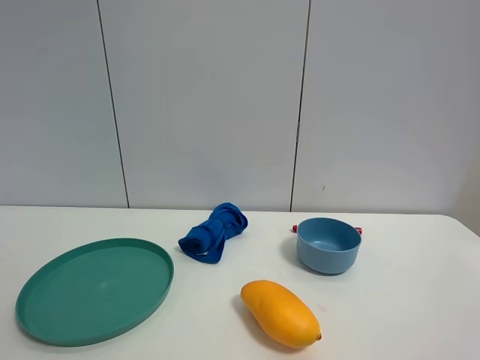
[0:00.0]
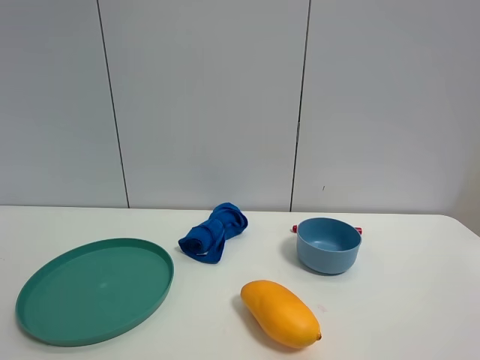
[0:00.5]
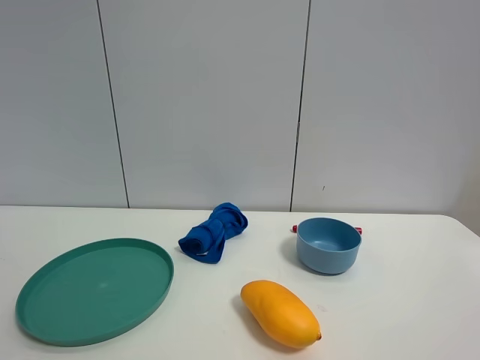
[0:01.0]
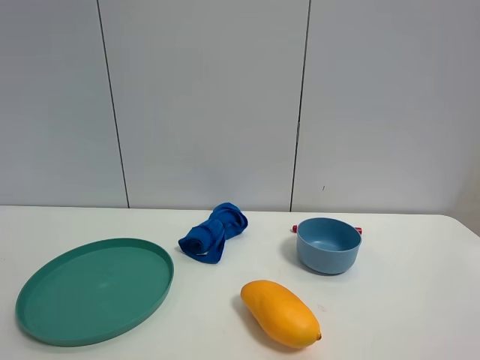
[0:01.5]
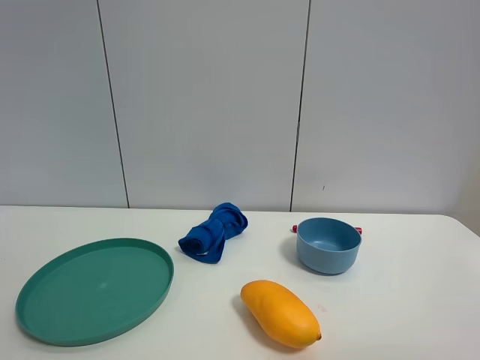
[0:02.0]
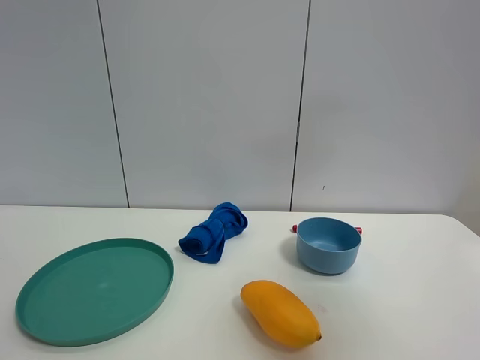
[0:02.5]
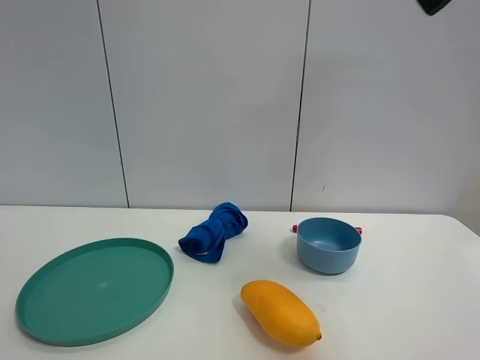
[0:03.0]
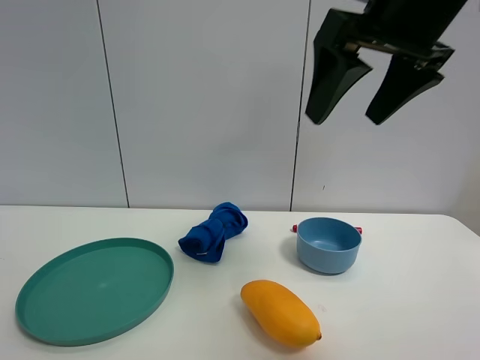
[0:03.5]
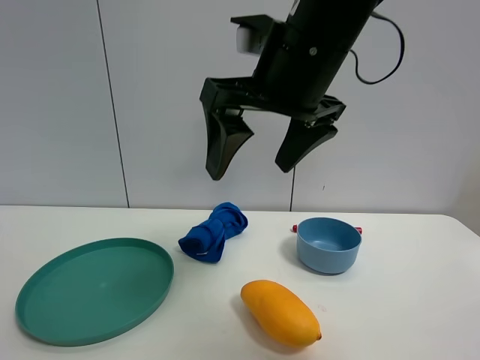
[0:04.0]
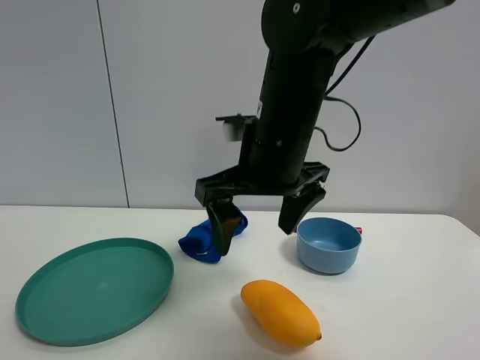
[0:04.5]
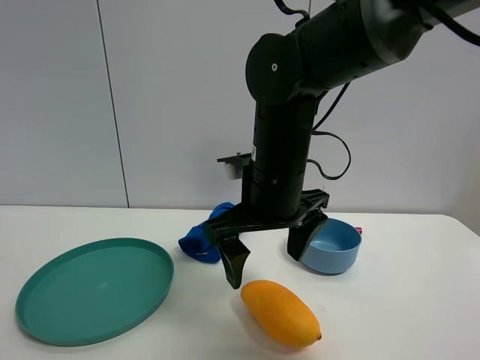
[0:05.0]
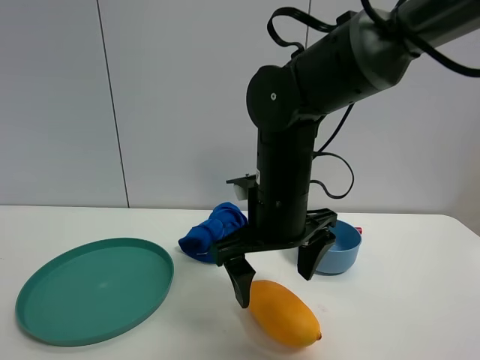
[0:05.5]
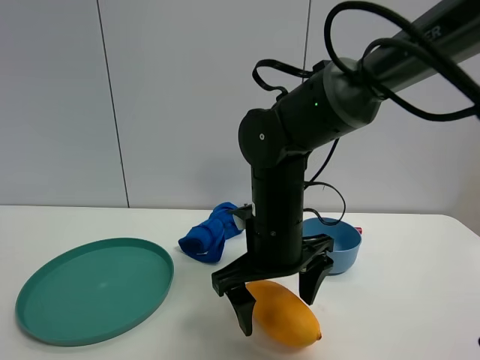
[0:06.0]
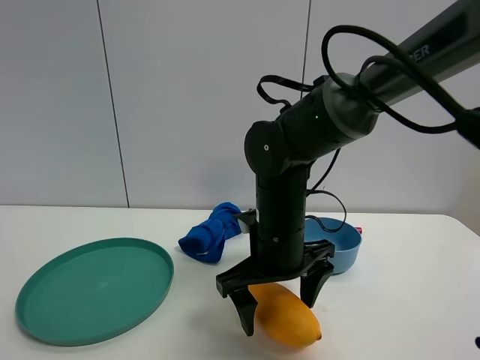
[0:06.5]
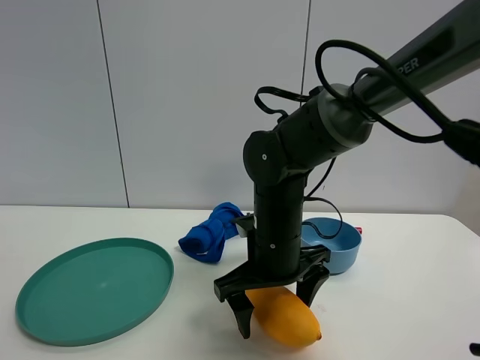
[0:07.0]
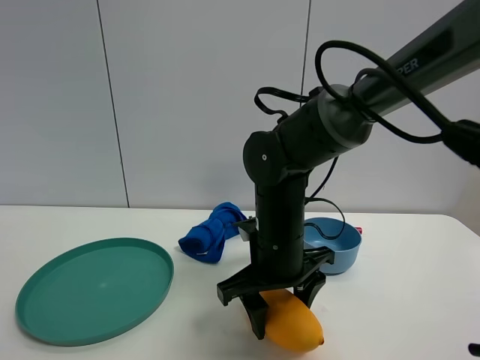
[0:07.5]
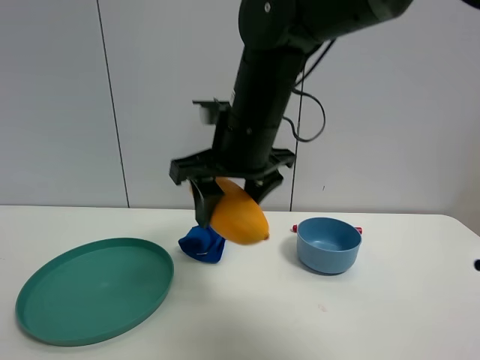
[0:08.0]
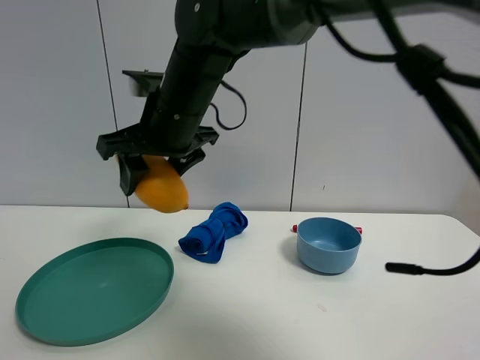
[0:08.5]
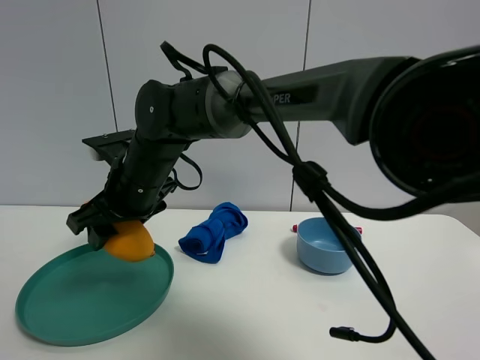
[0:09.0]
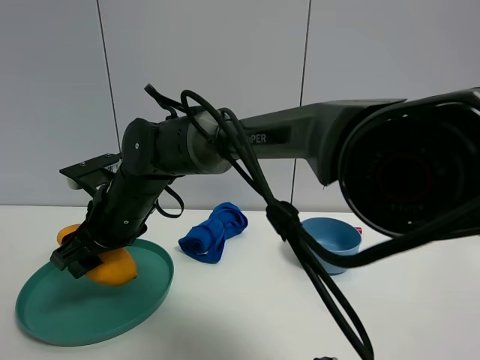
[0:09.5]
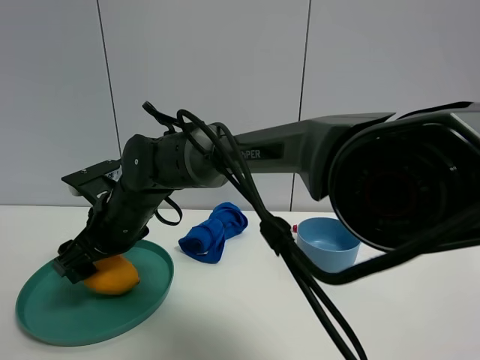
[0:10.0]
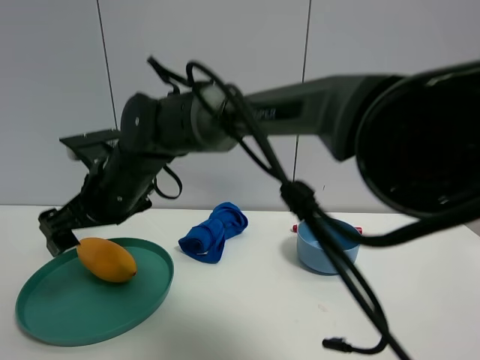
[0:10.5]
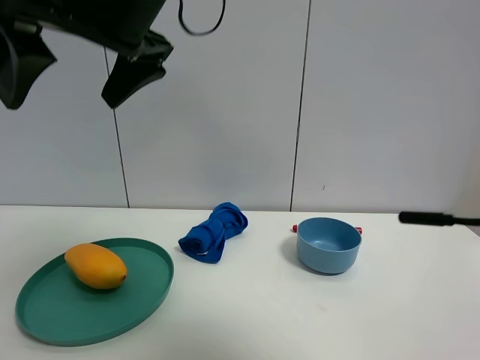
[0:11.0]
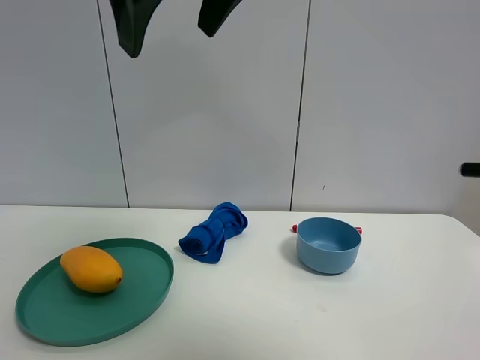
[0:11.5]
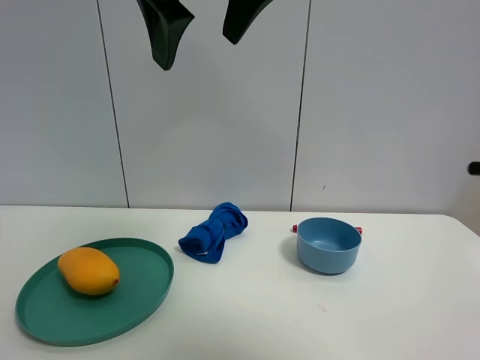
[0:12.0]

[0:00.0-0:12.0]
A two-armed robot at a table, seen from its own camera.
Task of the whole recording: the gripper move the object.
Step, 0:00.0 to 0:07.0: Grasp the mango with the right gripper.
Step, 0:07.5 to 0:10.5: Place the mango into the green plate with the right gripper.
0:02.0 to 0:04.0: The right gripper goes about 35 cm forward and to the left.
0:04.0 to 0:06.0: The right gripper moves downward, about 20 cm.
0:06.0 to 0:08.0: The right gripper is displaced upward by some 10 cm, and closes its fingers.
0:08.0 to 0:10.0: The right gripper travels to the left and downward by roughly 20 cm, and opens its fingers.
0:10.0 to 0:12.0: The right gripper is displaced upward and to the right by about 30 cm, and opens up.

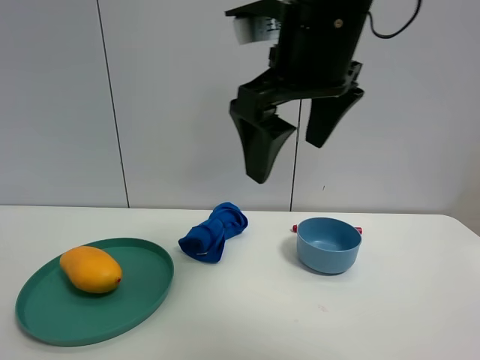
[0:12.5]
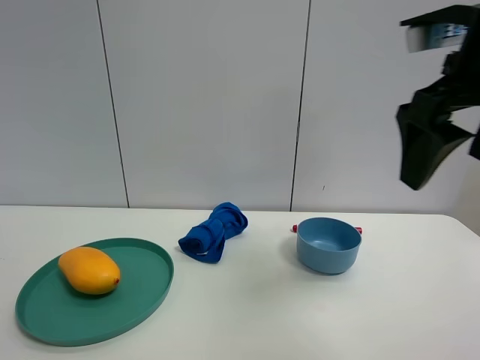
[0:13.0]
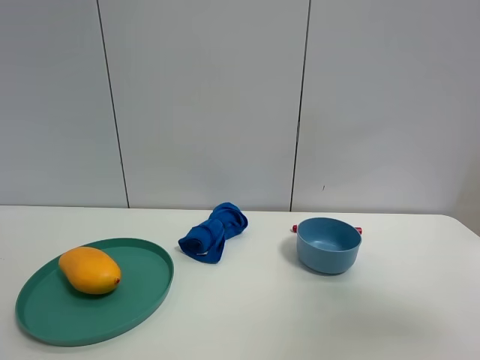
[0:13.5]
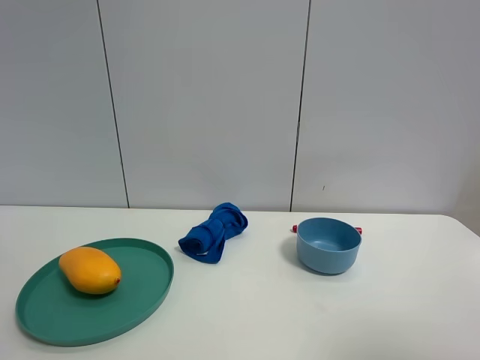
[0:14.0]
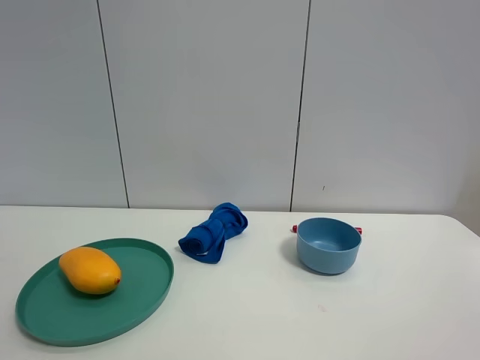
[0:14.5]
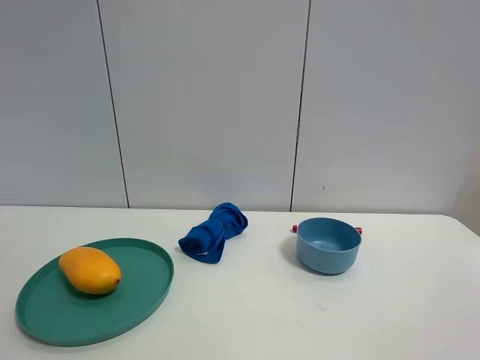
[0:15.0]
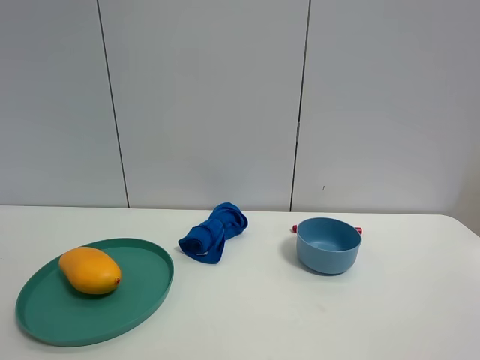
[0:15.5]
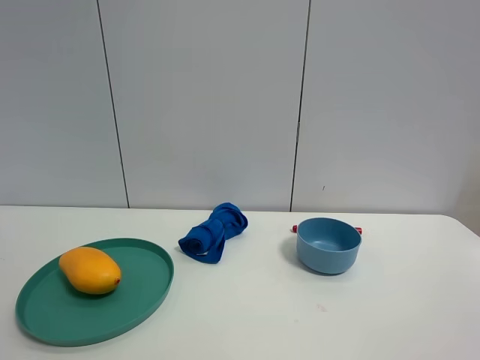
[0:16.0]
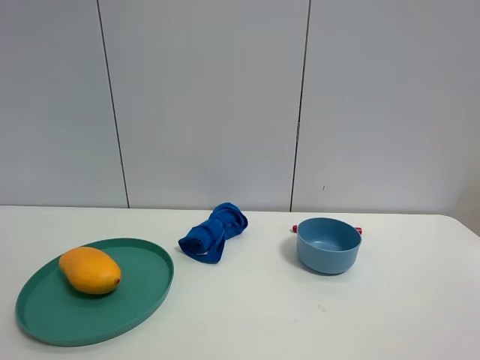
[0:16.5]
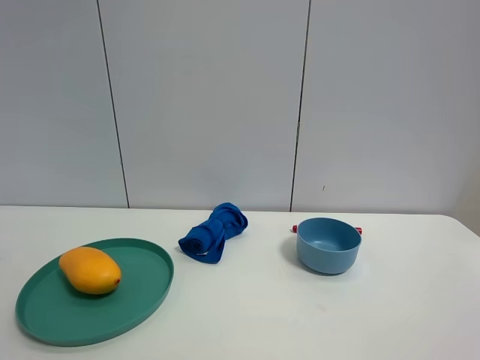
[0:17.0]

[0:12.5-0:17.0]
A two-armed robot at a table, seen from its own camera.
Task of the whole recording: the gripper move the object.
0:12.5 to 0:14.5: The right gripper moves backward and to the right, about 35 cm.

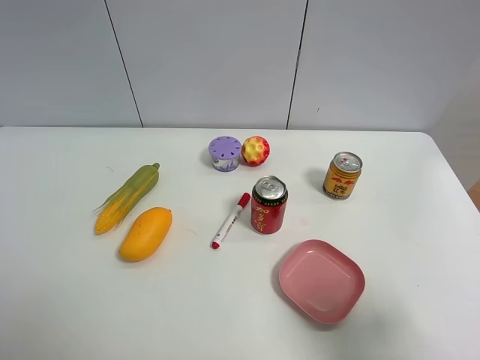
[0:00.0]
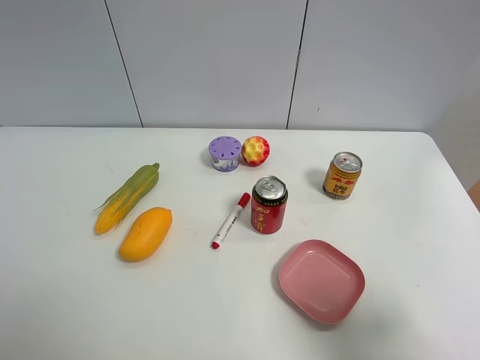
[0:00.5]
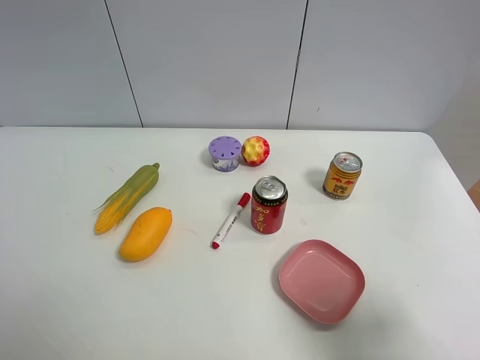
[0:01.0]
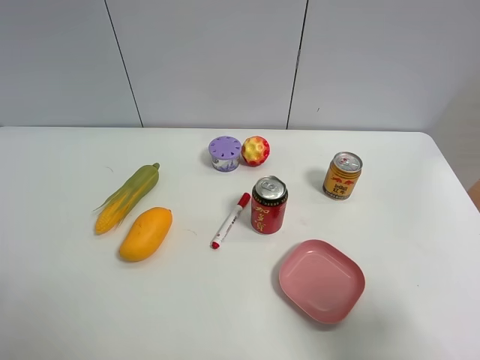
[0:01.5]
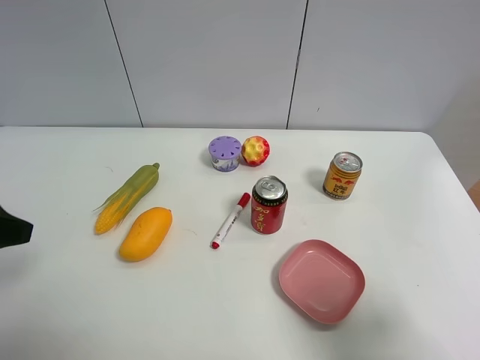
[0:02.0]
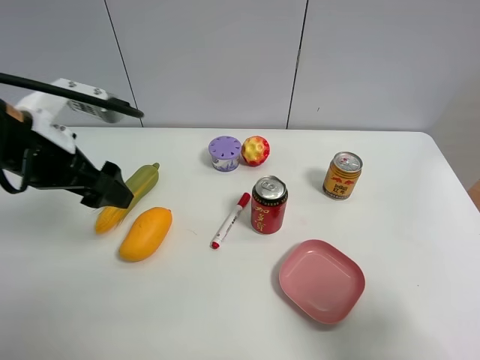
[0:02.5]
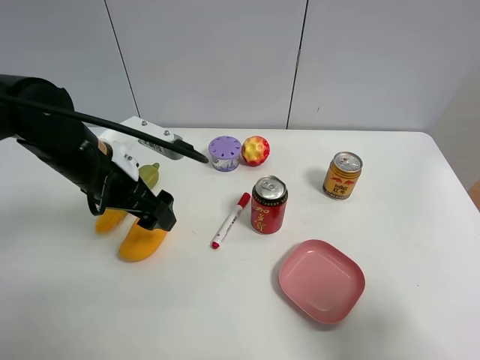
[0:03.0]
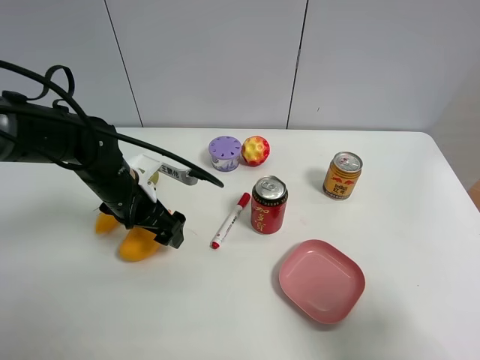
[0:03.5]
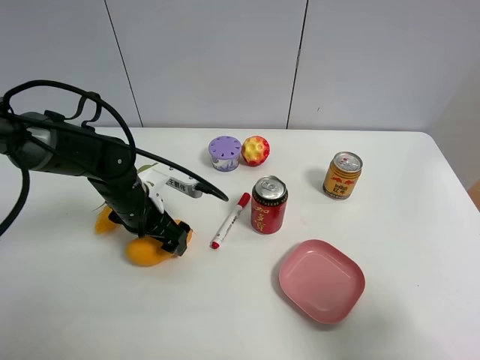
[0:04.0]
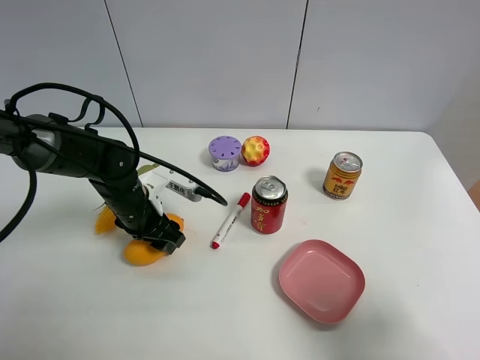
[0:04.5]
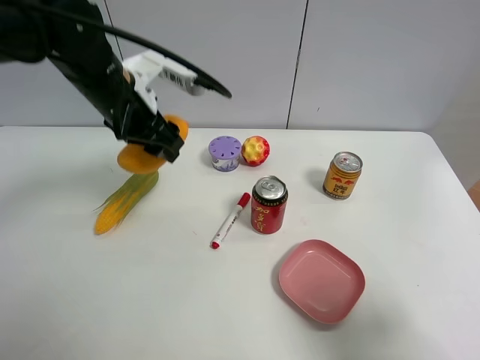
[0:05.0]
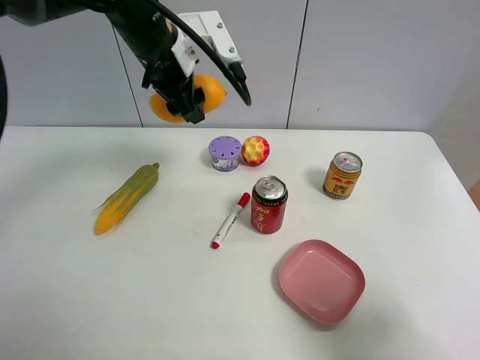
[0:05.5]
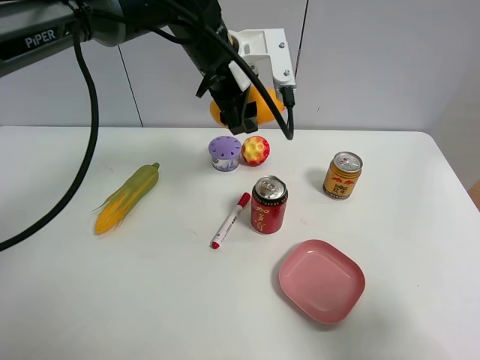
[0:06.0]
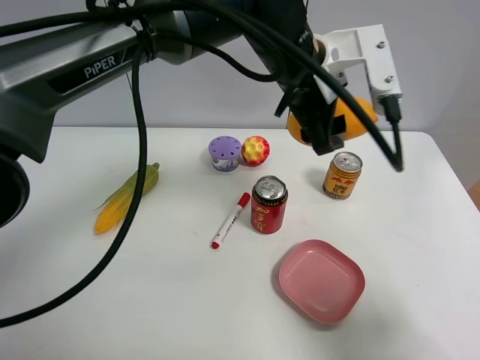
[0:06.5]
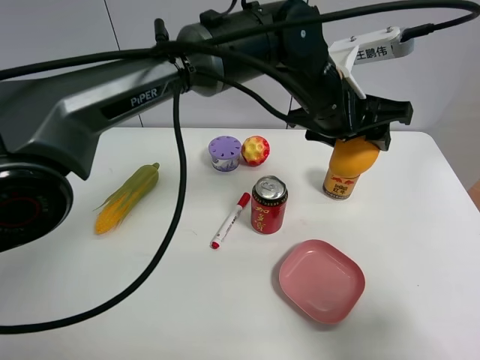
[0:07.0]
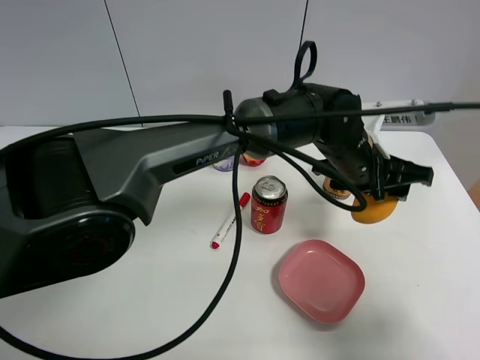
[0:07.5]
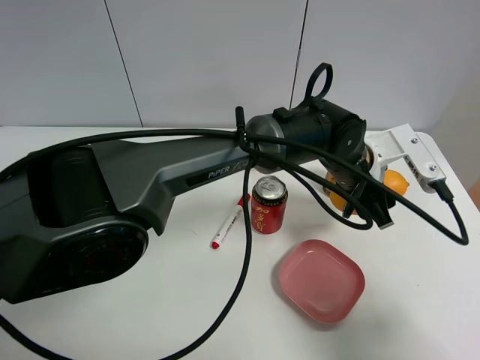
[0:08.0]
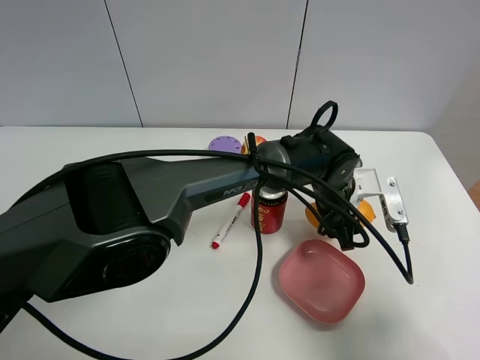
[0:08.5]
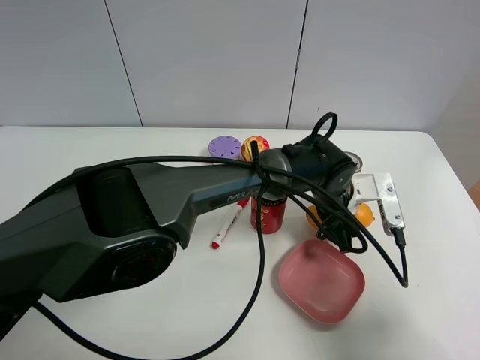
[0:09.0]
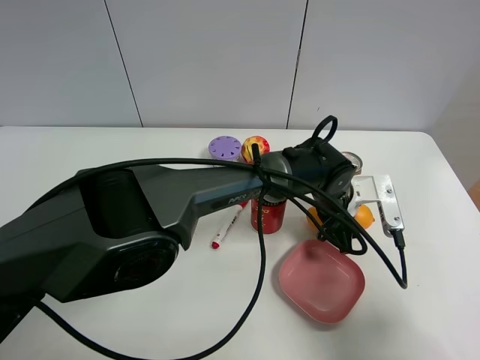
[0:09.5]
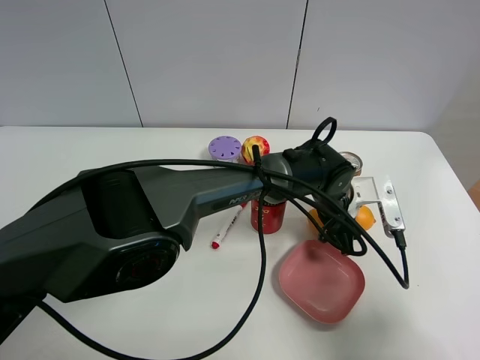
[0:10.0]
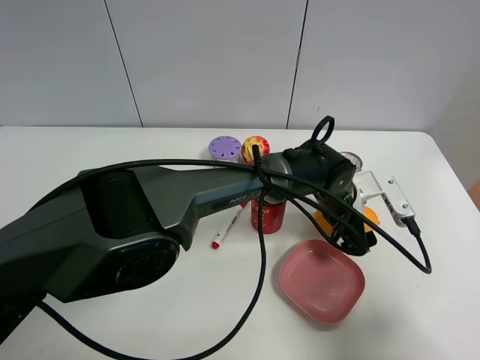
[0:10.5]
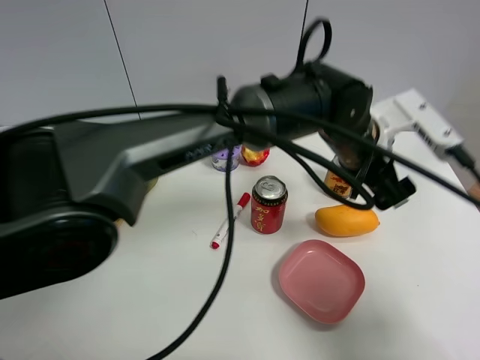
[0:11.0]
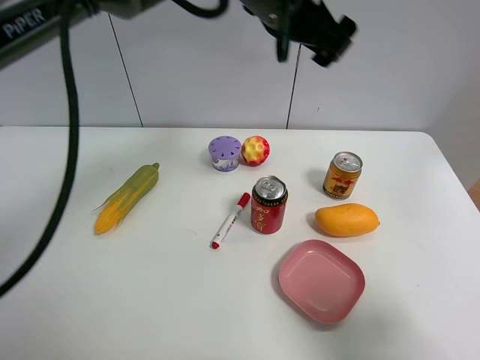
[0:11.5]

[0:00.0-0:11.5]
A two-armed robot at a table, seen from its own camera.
Task of the whole recording: the gripper move the object.
Step, 0:00.0 to 0:04.0: Grasp the mango with the left gripper.
Step, 0:04.5 to 0:10.5: Place the mango on the table with the left gripper.
0:00.0 to 0:02.0: The left gripper goes some 15 cm forward.
0:02.0 to 0:04.0: The left gripper is displaced downward, to the right and forward by approximately 30 cm.
0:04.0 to 0:06.0: The left gripper is displaced upward, to the right and forward by about 25 cm, and closes up.
0:06.0 to 0:07.5: The left gripper shifts roughly 20 cm to the right, downward and backward.
0:07.5 to 0:09.5: The left gripper heads downward, covering approximately 10 cm.
0:09.5 to 0:11.5: The left gripper shifts approximately 30 cm upward and to the left, and opens up.
